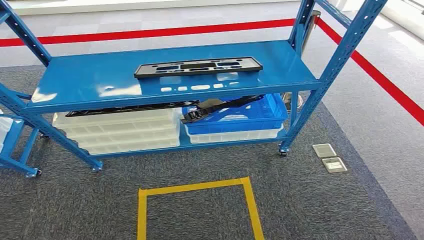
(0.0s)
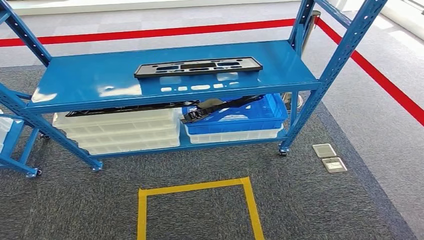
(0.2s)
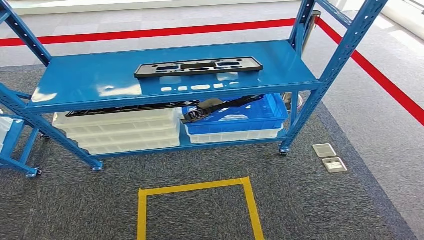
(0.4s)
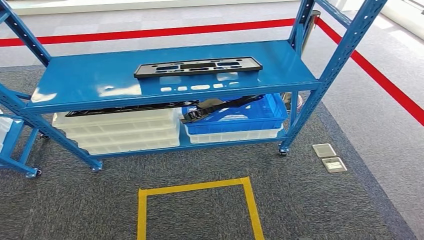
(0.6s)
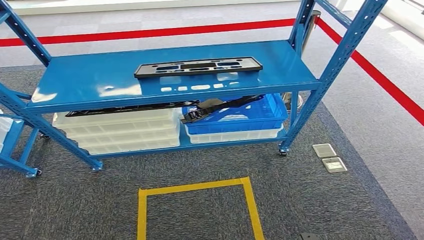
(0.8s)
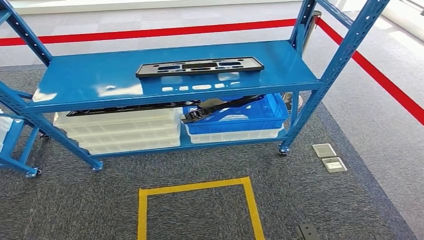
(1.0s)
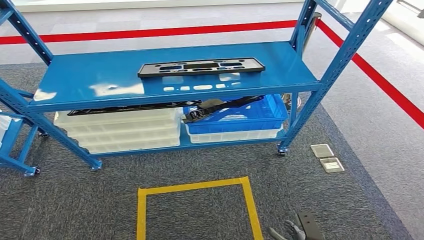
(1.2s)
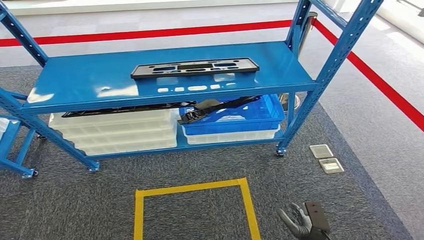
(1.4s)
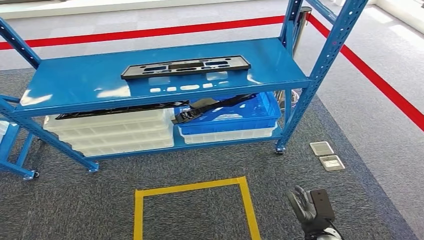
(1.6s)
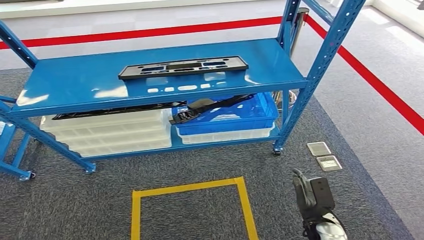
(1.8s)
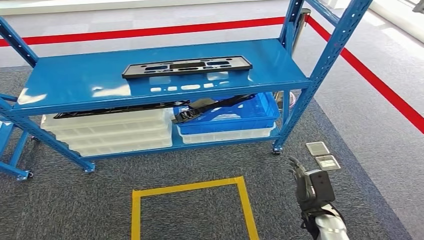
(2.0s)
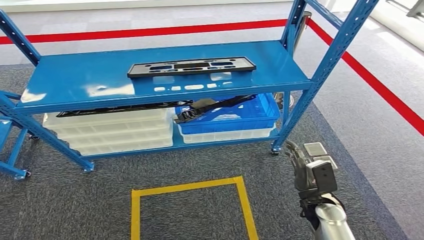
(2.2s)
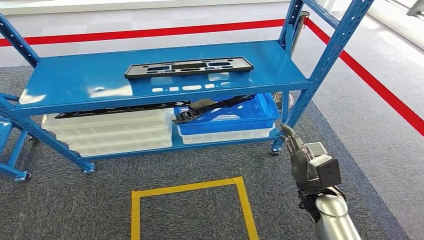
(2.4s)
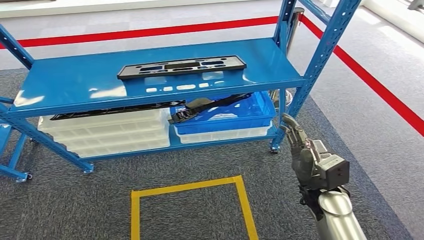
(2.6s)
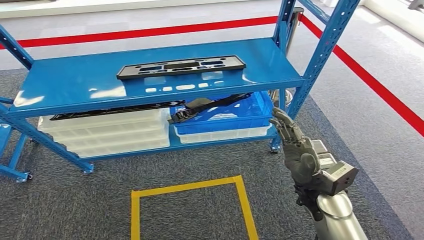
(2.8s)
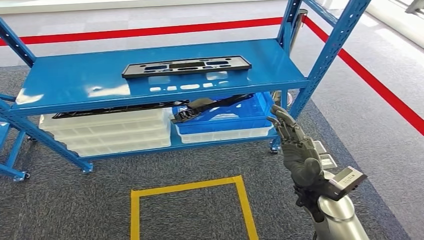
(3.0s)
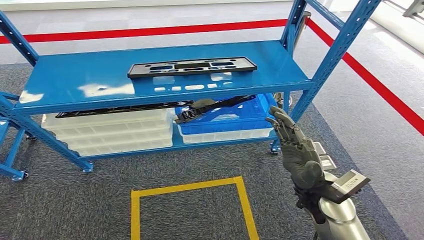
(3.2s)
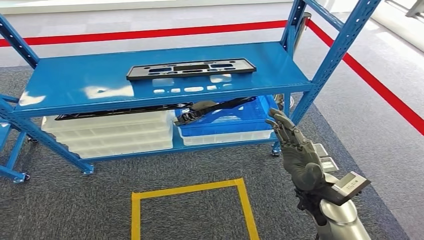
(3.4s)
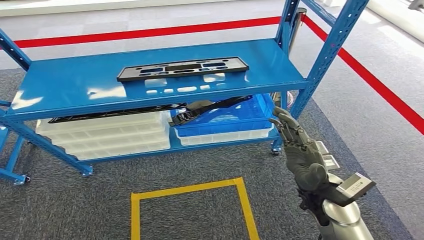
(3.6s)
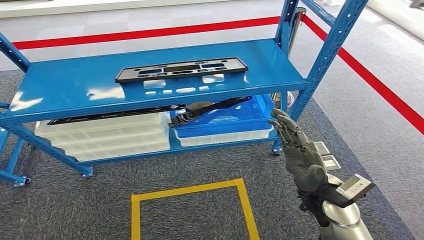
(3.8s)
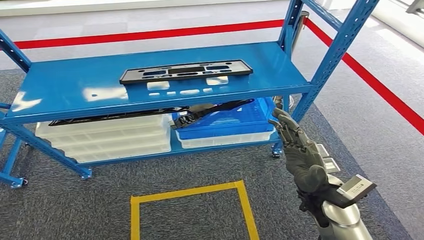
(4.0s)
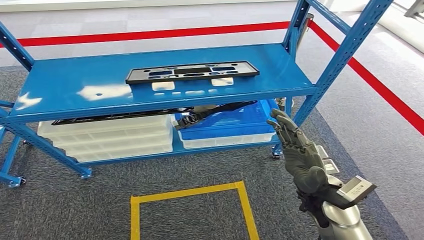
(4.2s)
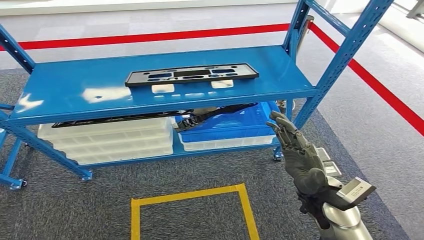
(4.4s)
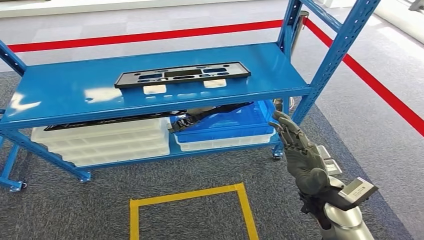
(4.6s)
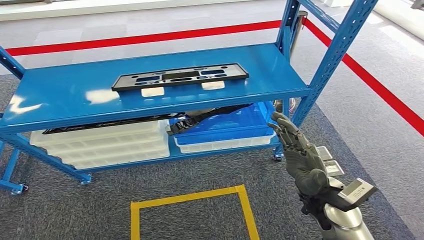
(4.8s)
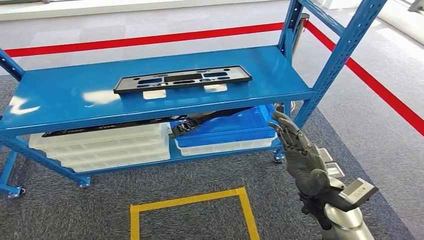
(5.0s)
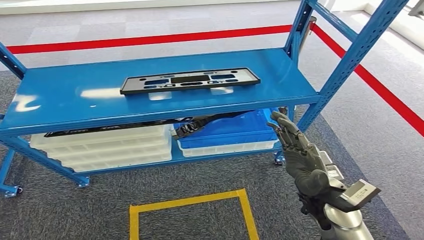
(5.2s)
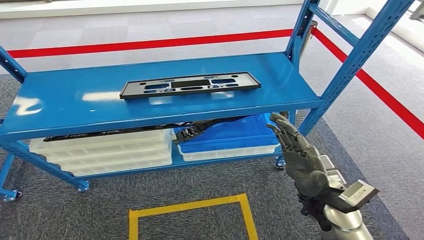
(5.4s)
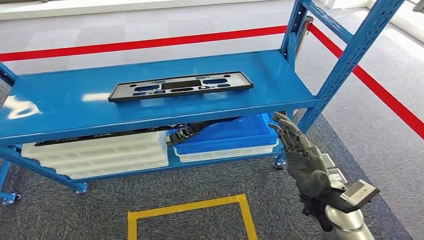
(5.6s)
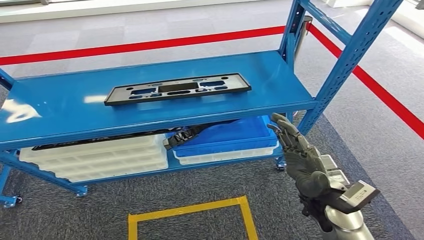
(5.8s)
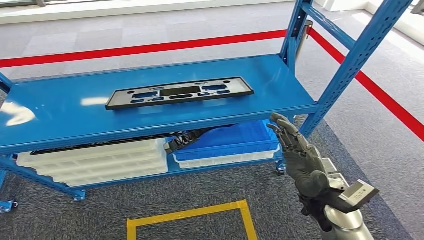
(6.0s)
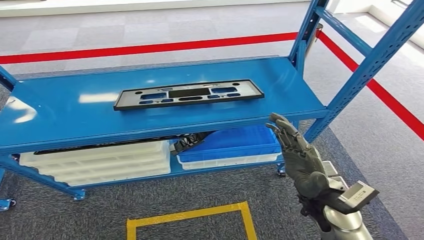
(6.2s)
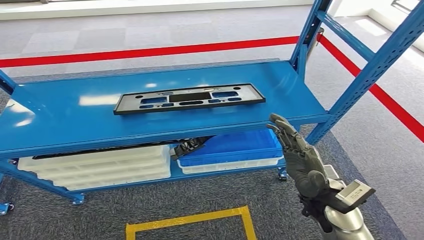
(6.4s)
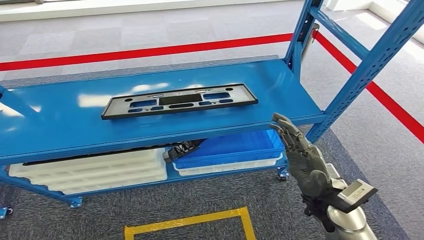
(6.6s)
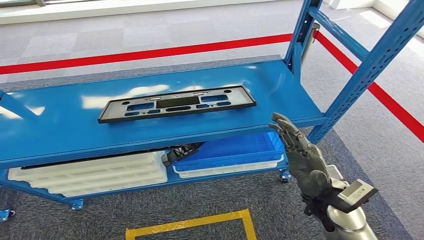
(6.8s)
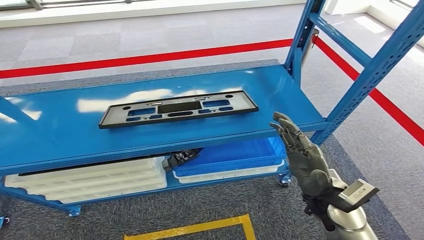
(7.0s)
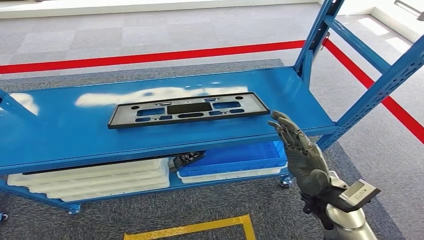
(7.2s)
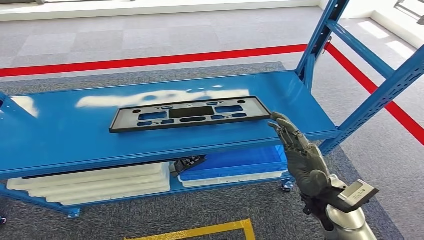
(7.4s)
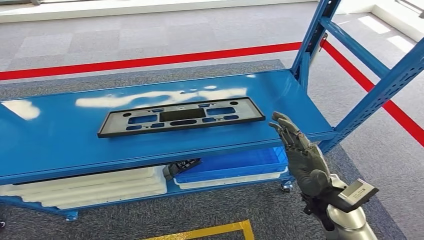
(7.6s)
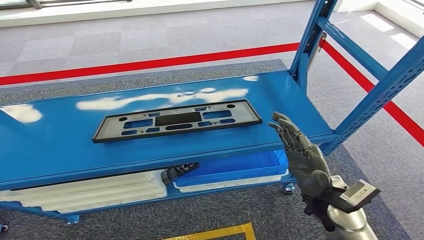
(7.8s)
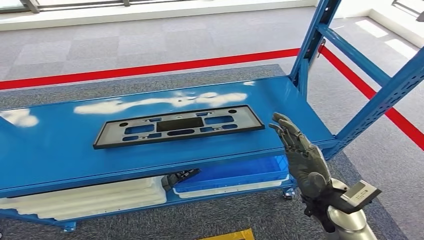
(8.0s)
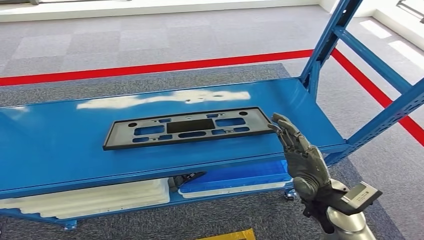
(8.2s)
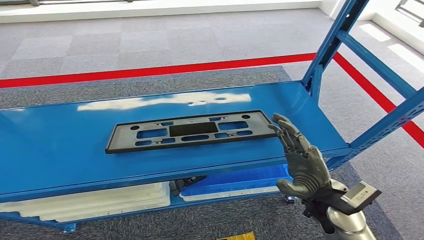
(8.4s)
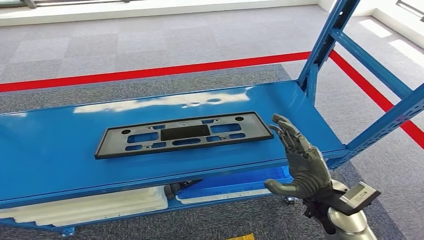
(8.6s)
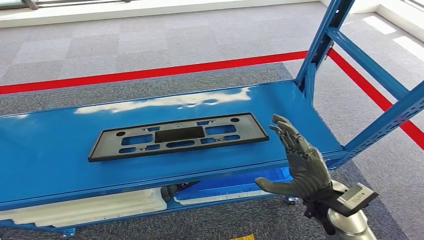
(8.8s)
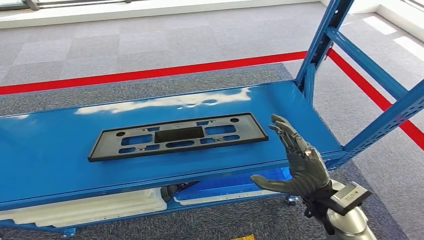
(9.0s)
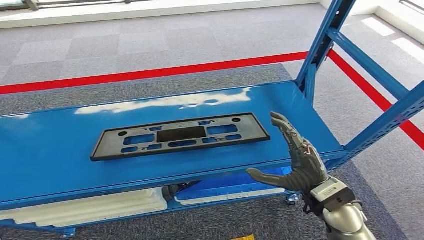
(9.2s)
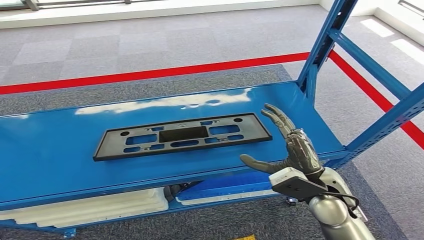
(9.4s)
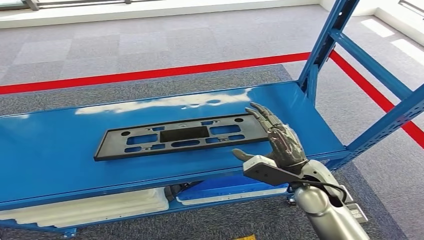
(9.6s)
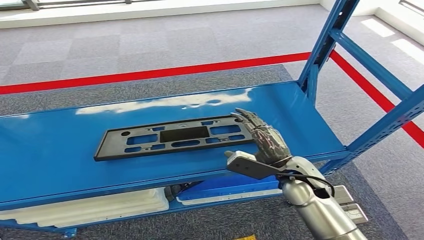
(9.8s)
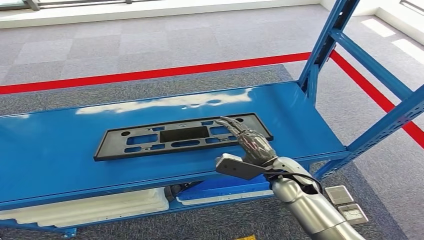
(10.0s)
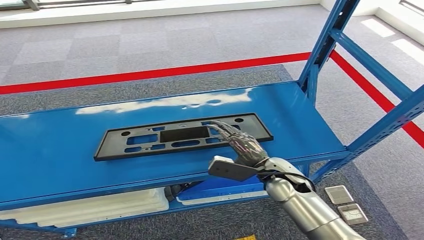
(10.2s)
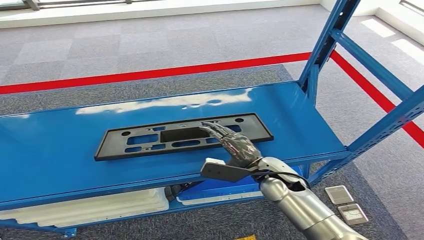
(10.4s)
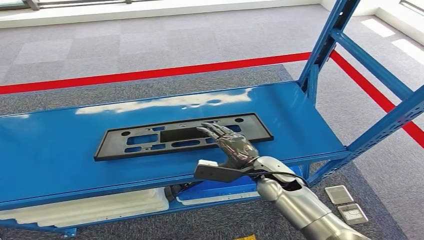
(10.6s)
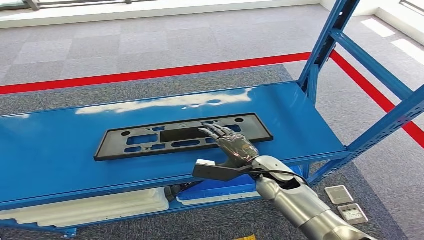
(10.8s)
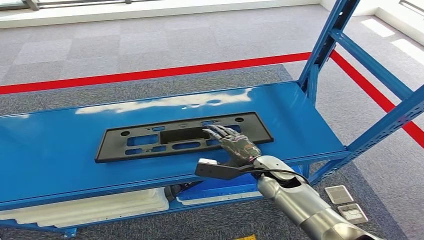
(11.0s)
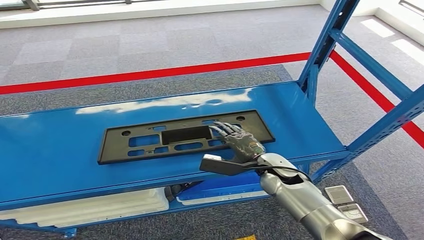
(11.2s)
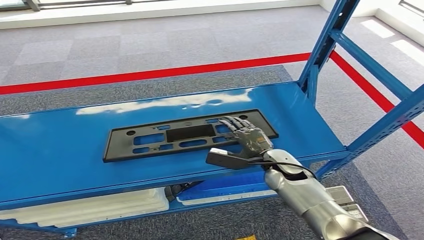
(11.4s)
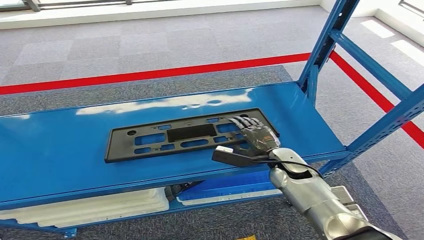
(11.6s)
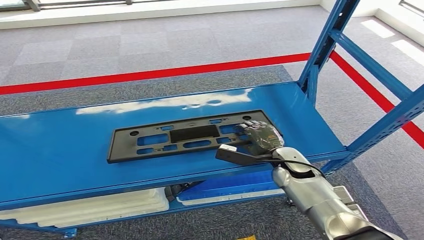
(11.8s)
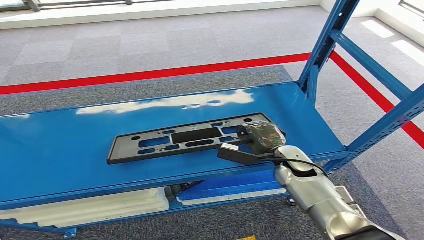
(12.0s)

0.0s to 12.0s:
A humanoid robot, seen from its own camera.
9.0s to 10.4s: The right hand moves forward, to the left and downward, some 10 cm.
10.4s to 12.0s: The right hand shifts roughly 5 cm to the right.

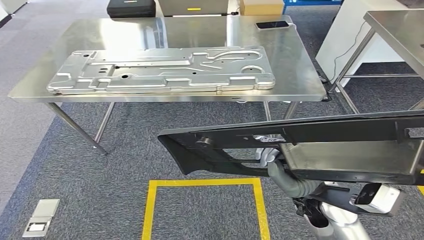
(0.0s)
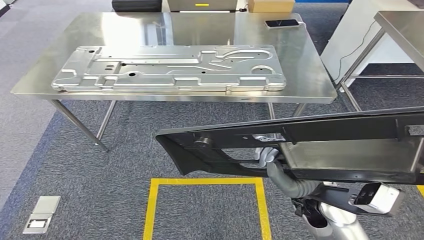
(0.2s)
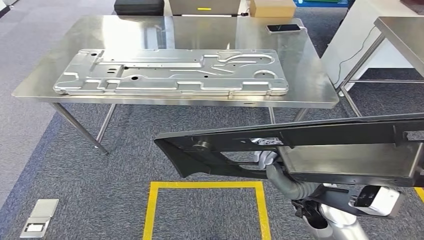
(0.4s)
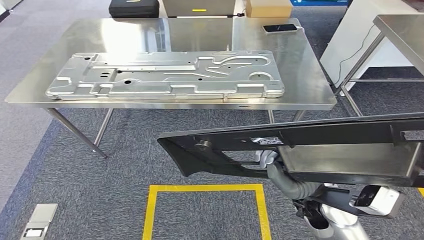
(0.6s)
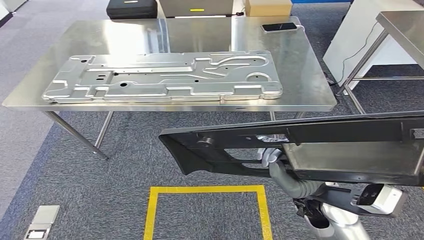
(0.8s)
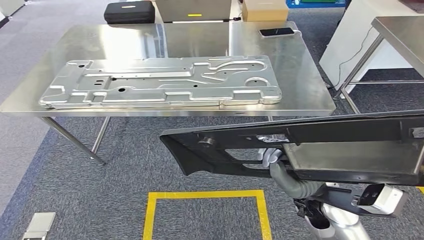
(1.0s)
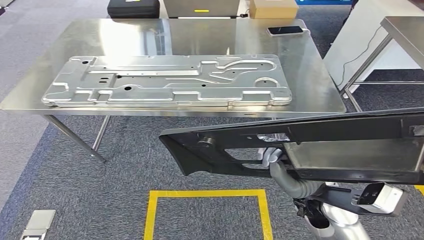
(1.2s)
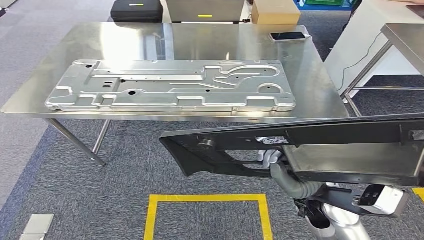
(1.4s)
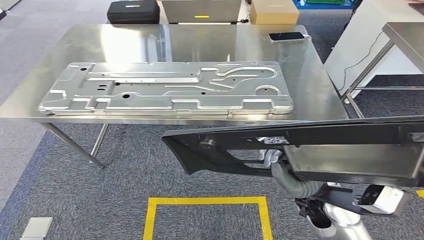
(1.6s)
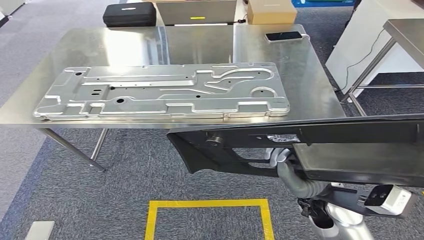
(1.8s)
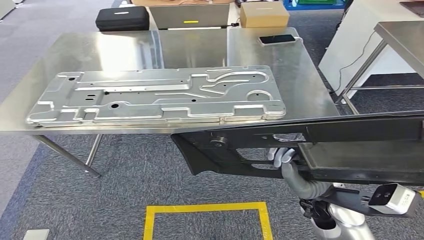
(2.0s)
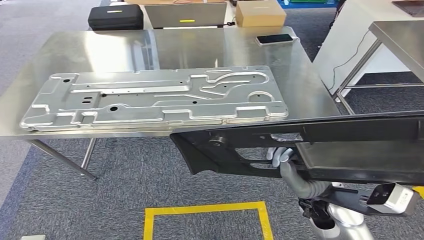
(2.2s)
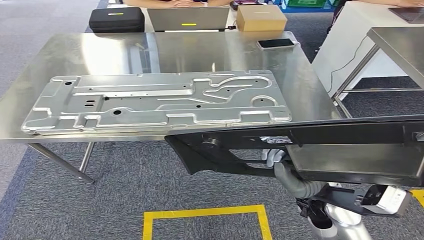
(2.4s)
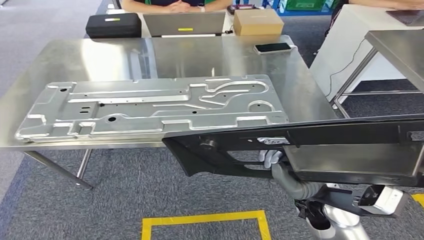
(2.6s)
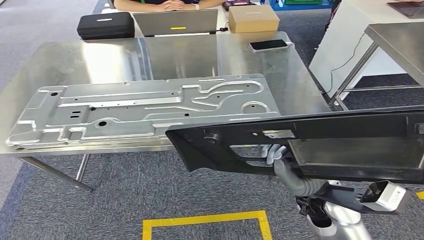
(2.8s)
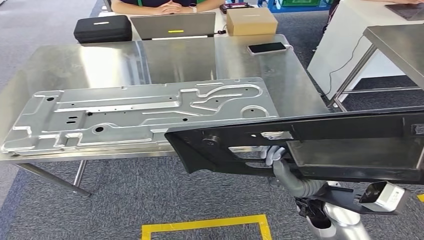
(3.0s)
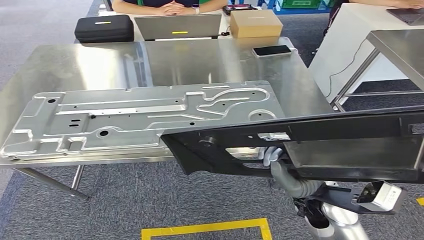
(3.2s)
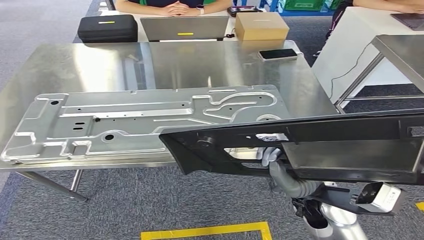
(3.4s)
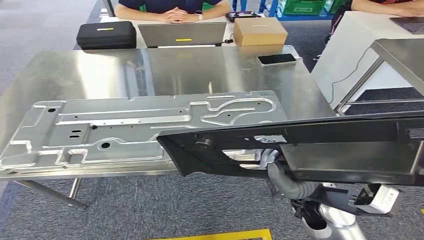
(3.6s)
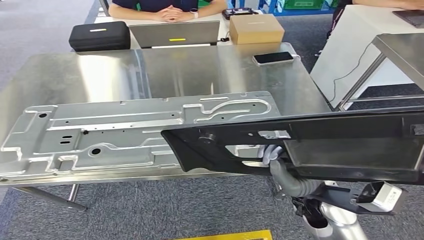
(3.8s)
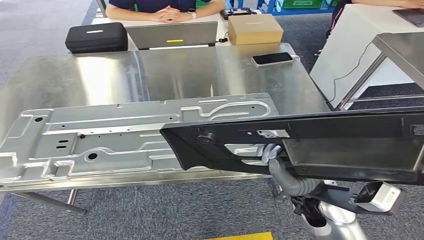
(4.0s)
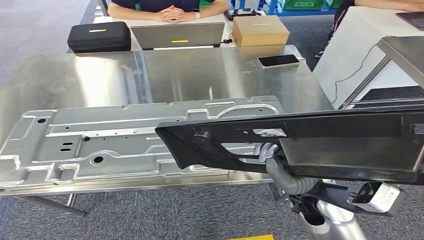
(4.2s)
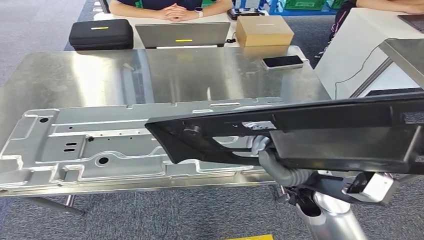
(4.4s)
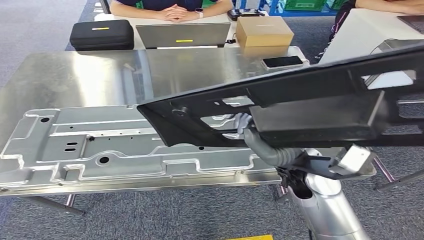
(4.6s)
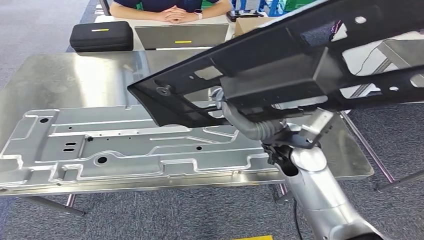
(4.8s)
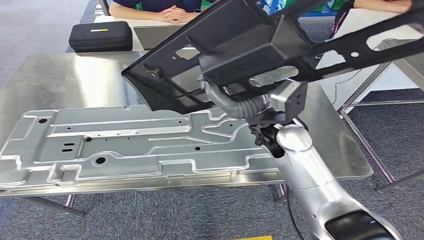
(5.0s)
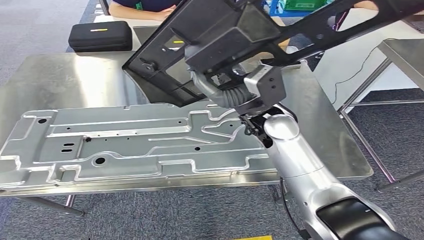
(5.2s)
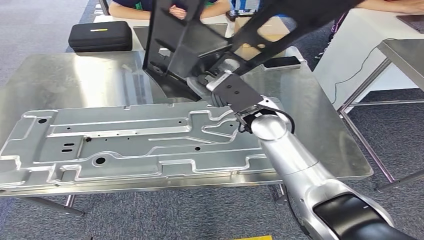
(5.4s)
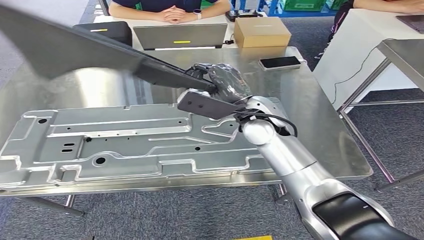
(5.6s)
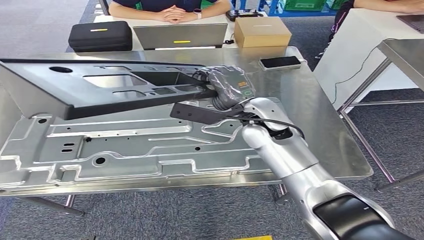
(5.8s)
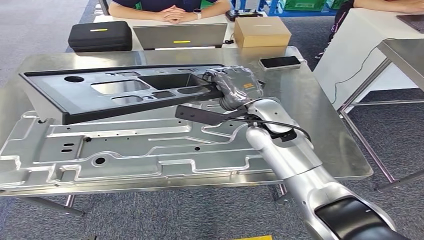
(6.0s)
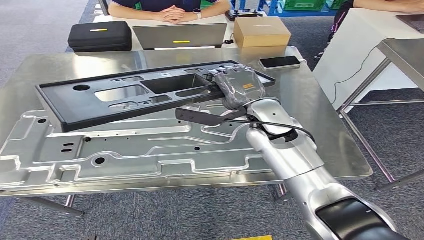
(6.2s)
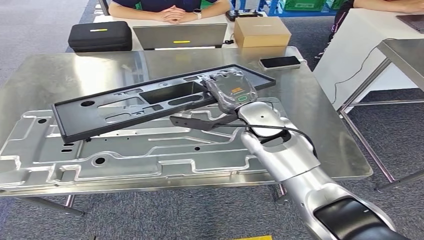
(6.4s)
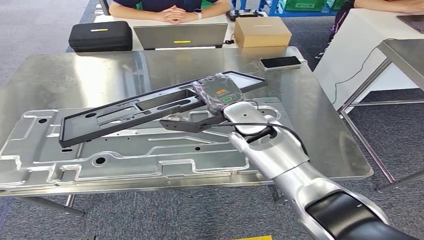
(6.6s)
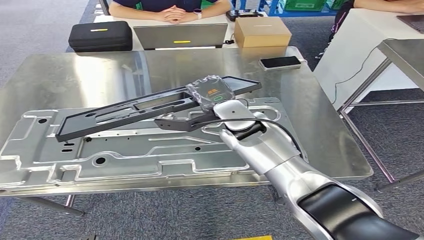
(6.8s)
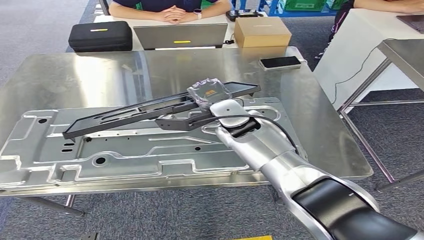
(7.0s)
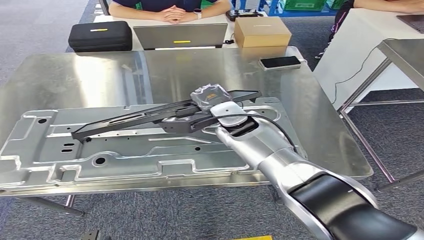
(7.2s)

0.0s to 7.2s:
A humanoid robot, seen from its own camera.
Step, 0.0s to 4.0s: Move the small parts to the workbench.
